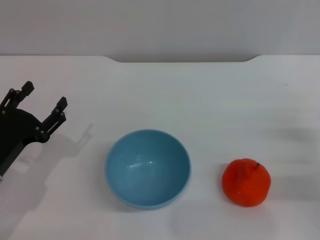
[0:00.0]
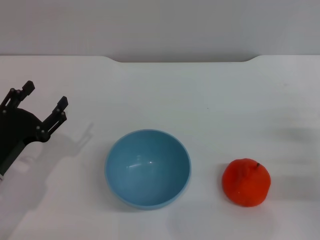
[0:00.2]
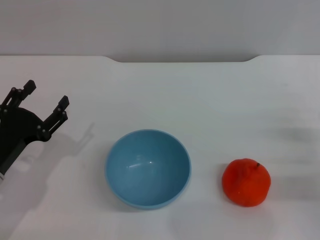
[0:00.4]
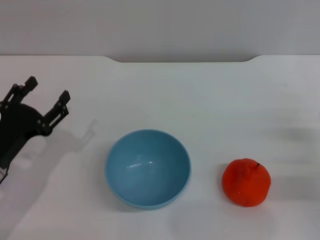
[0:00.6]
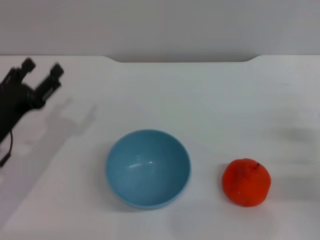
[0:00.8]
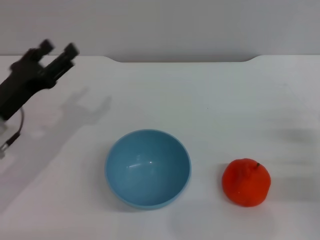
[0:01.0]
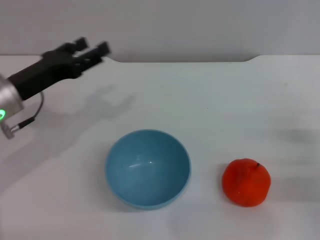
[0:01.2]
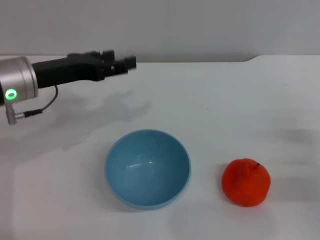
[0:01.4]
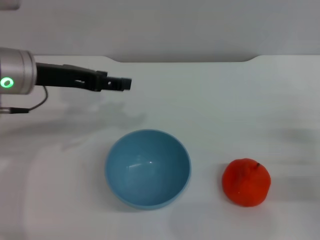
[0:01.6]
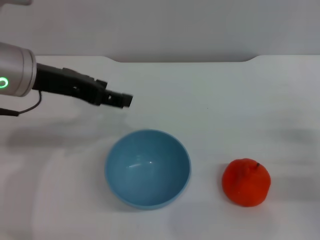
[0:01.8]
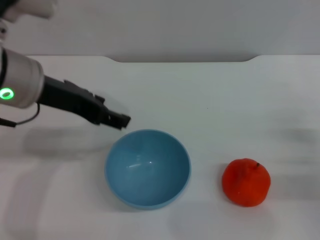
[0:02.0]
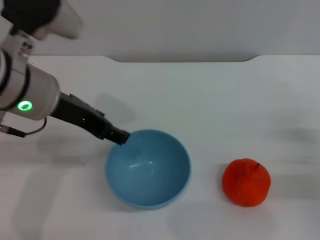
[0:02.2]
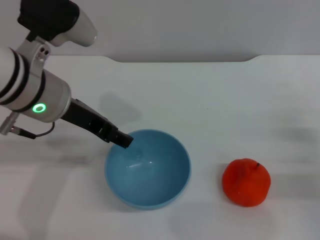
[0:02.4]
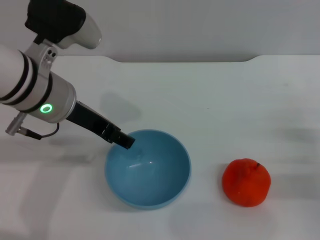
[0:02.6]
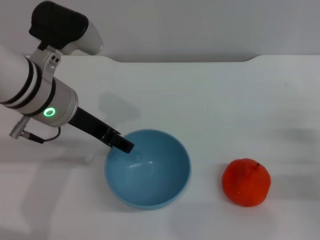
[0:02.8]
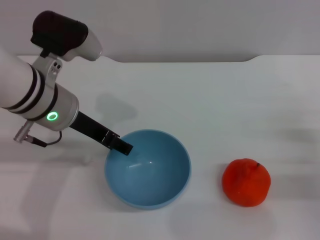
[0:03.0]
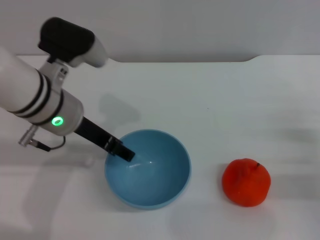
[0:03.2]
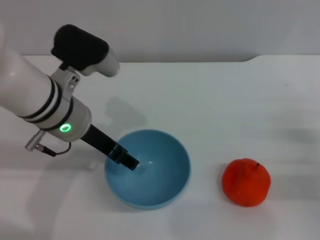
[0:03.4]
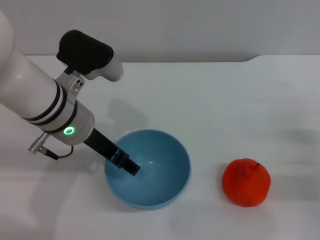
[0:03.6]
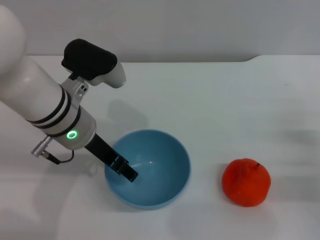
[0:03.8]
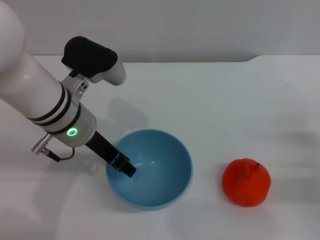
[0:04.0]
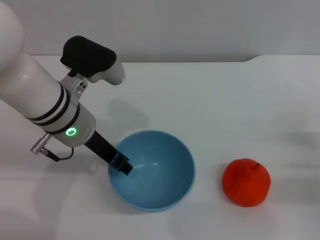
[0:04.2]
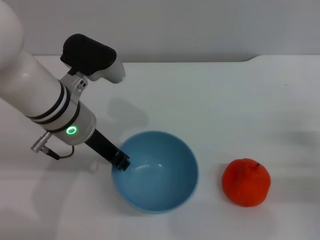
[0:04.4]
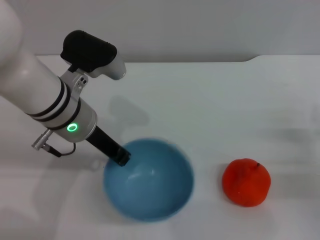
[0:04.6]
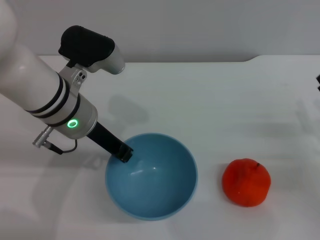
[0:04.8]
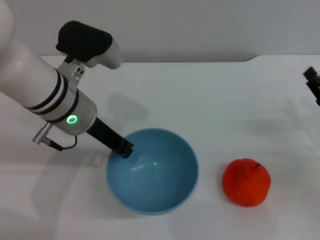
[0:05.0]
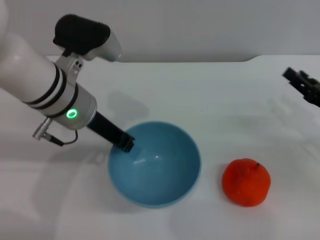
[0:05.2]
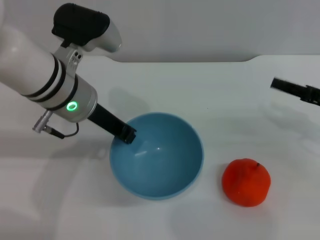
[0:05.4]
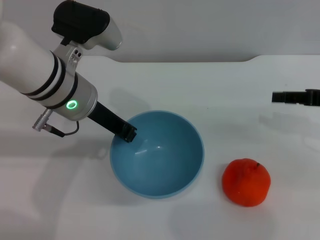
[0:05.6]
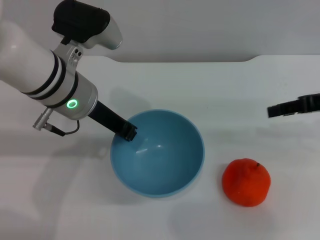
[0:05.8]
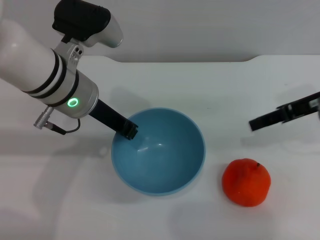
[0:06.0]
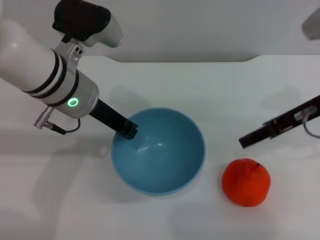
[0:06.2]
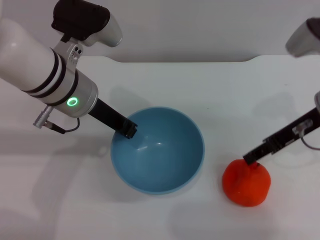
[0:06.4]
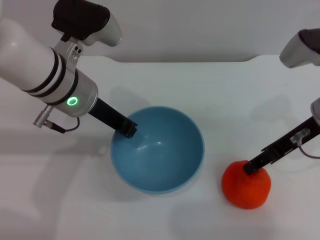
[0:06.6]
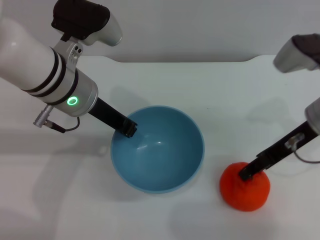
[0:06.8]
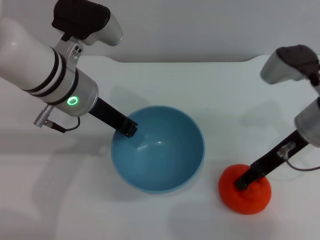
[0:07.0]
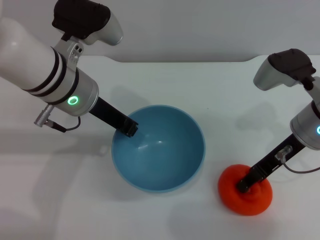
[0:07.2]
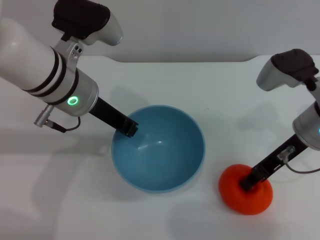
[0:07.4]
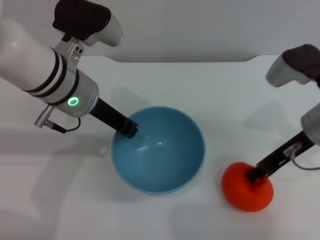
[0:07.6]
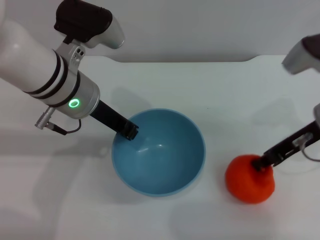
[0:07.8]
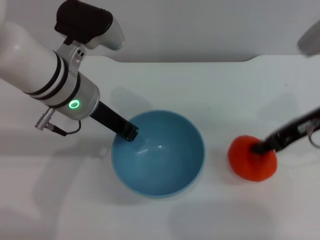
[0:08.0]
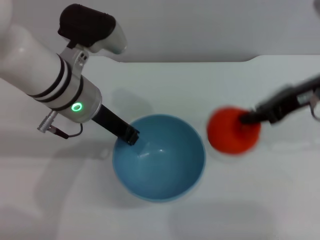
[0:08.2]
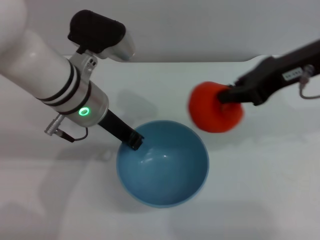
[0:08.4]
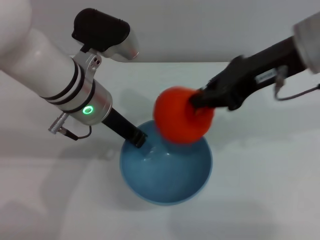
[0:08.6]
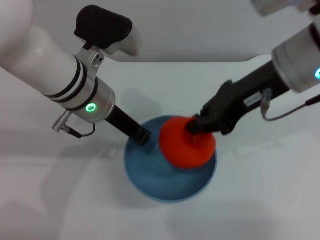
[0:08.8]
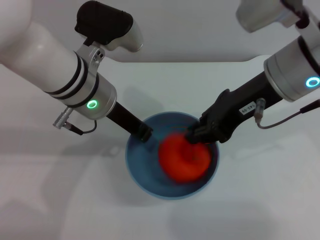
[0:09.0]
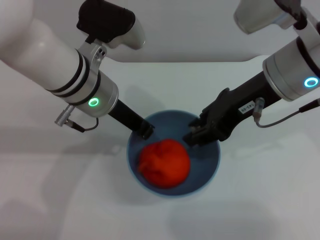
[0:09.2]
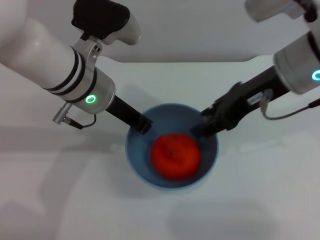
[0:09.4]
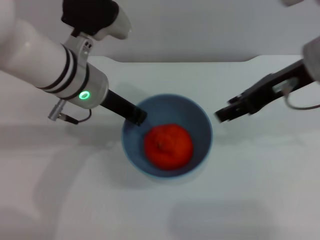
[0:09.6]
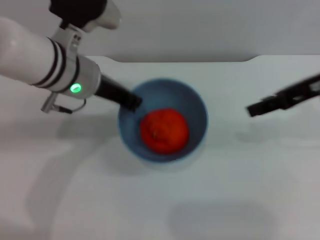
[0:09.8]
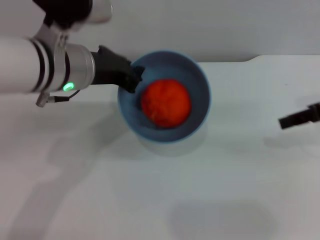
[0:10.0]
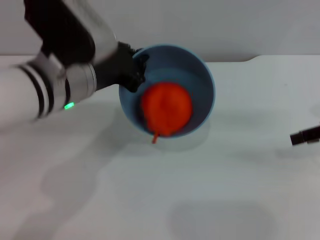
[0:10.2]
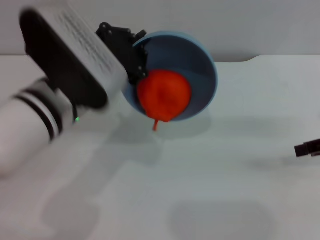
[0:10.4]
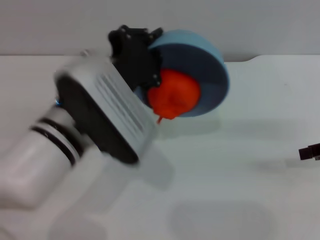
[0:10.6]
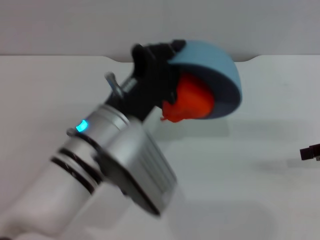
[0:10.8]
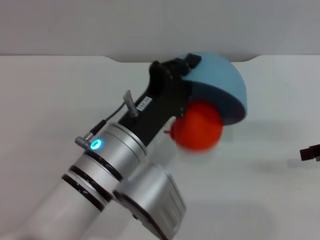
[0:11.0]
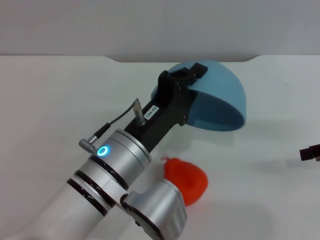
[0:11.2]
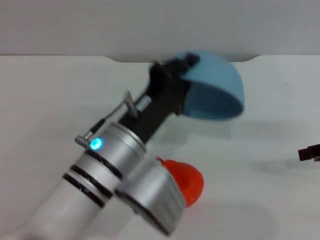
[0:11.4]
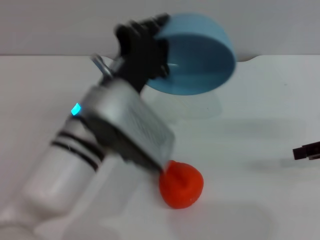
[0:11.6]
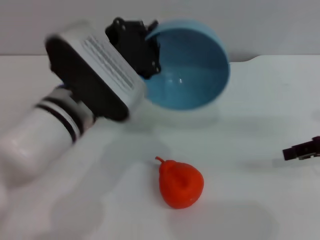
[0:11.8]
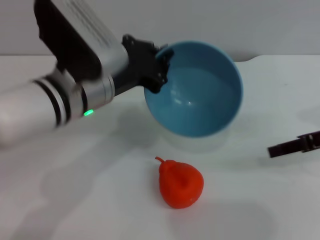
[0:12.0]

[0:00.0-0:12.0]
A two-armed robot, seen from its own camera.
Task of the whole recording: put the orange into the blue bowl and pour it out repeatedly.
Step, 0.0 to 5.6 s: Pick up the bowl with the left gripper.
Step, 6.0 to 8.0 s: Pick up the orange with the right gripper.
Step, 8.2 to 9.4 s: Place the orange into the bowl.
Step, 9.6 to 11.2 s: Pour the orange out of the bowl.
0.0 to 1.6 s: The left gripper heads upward and forward, covering roughly 20 cm.
1.6 to 3.0 s: The left gripper travels to the right by approximately 5 cm.
3.0 to 4.4 s: The left gripper closes its fingers.
4.4 to 6.0 s: The right gripper moves upward and forward, about 20 cm. Meanwhile the left gripper closes up.
6.0 to 7.6 s: The right gripper shifts by some 5 cm, and closes.
7.6 to 9.0 s: The right gripper moves upward and to the left, some 10 cm.
9.0 to 10.4 s: The left gripper travels backward by about 5 cm, while the right gripper shifts about 20 cm to the right, and opens.
10.4 to 12.0 s: The left gripper moves some 10 cm downward and comes back.

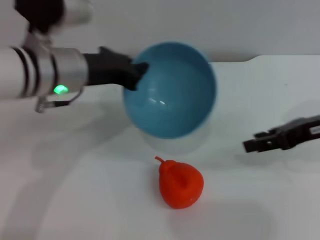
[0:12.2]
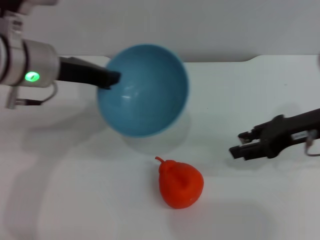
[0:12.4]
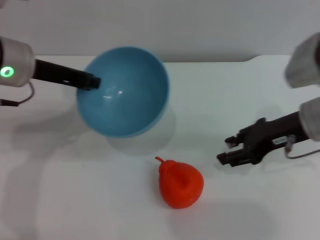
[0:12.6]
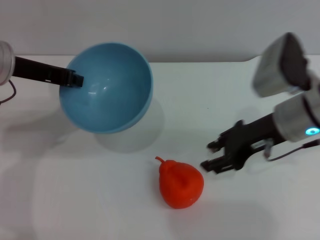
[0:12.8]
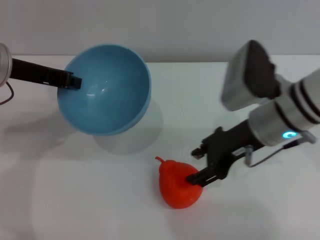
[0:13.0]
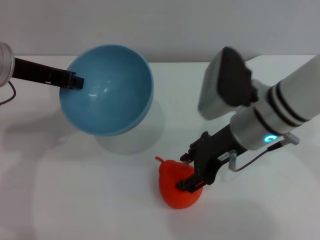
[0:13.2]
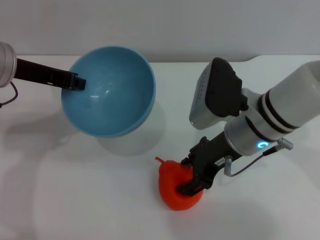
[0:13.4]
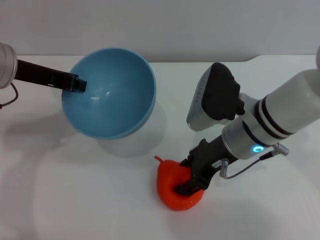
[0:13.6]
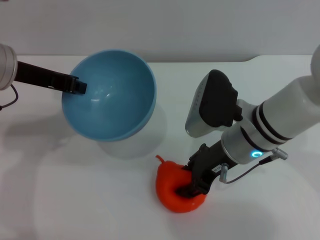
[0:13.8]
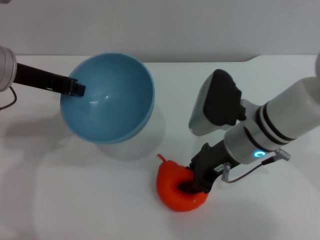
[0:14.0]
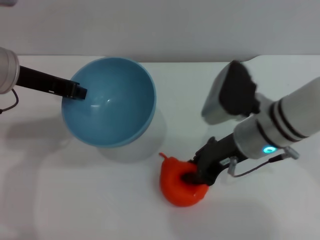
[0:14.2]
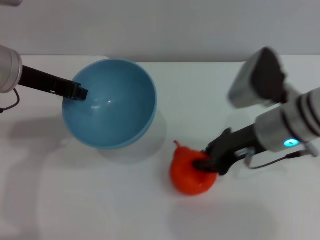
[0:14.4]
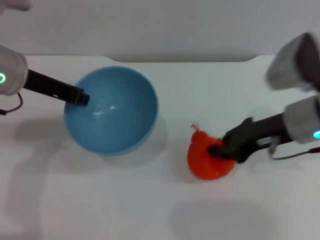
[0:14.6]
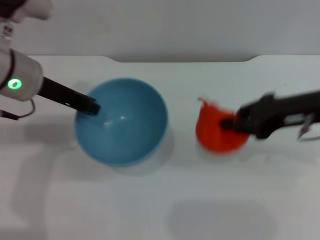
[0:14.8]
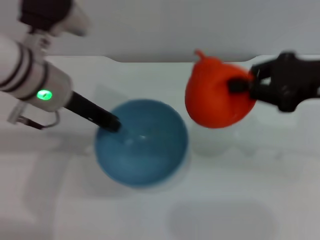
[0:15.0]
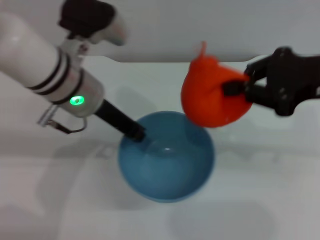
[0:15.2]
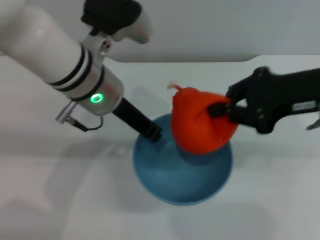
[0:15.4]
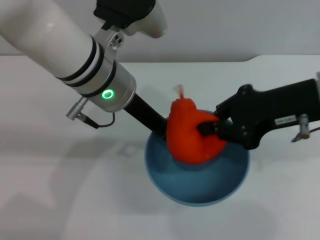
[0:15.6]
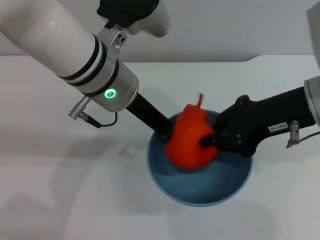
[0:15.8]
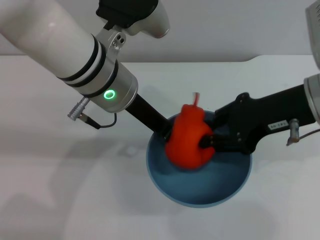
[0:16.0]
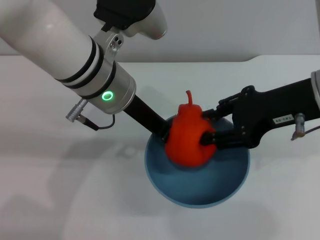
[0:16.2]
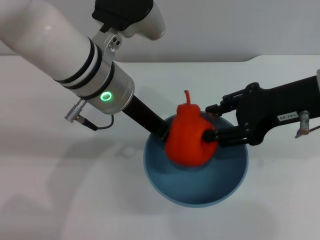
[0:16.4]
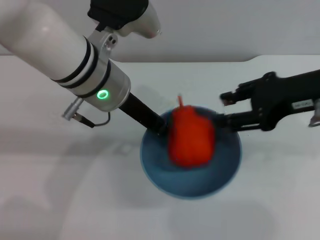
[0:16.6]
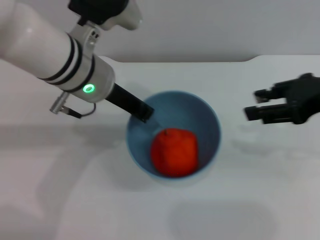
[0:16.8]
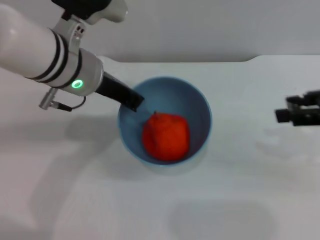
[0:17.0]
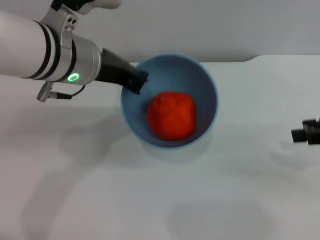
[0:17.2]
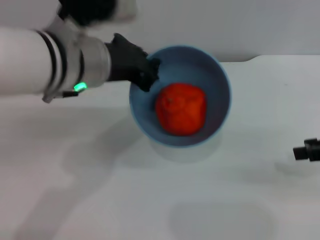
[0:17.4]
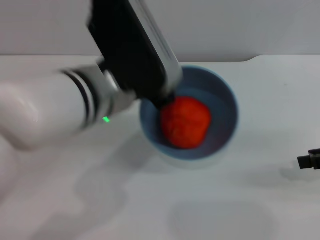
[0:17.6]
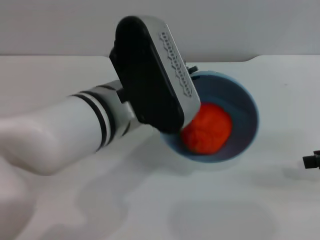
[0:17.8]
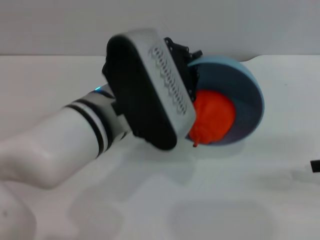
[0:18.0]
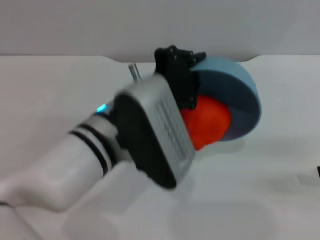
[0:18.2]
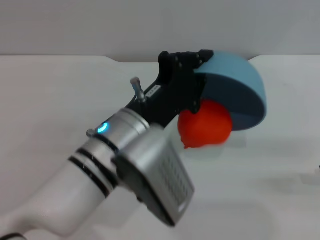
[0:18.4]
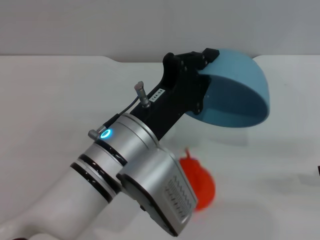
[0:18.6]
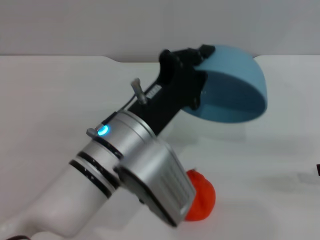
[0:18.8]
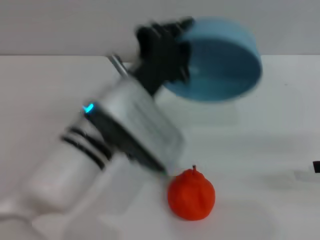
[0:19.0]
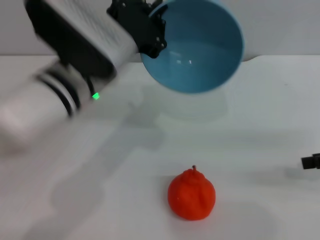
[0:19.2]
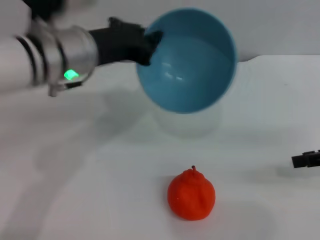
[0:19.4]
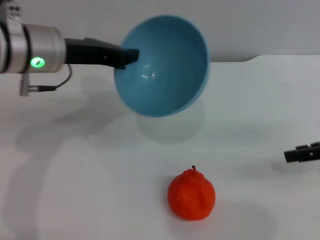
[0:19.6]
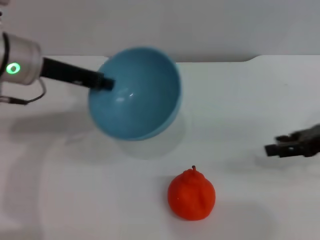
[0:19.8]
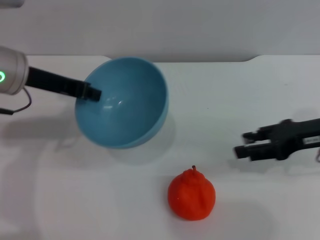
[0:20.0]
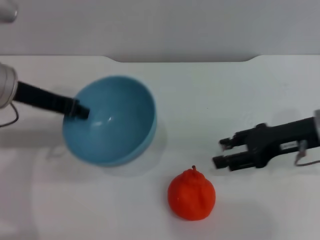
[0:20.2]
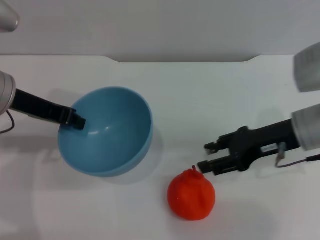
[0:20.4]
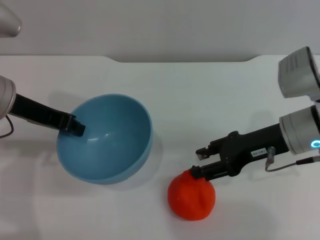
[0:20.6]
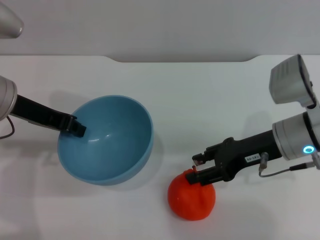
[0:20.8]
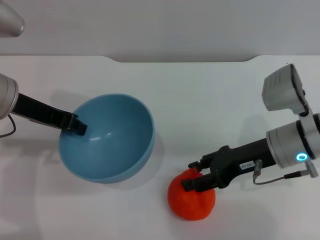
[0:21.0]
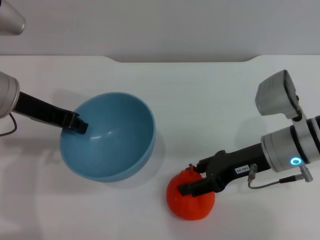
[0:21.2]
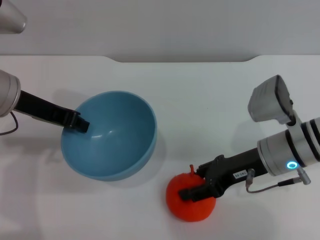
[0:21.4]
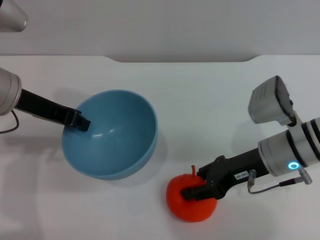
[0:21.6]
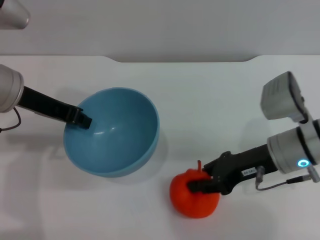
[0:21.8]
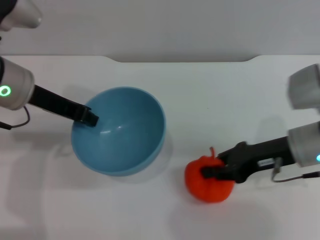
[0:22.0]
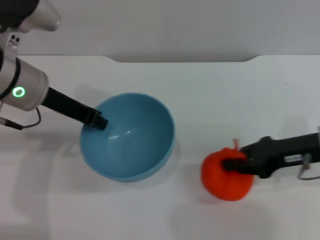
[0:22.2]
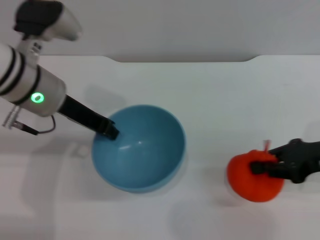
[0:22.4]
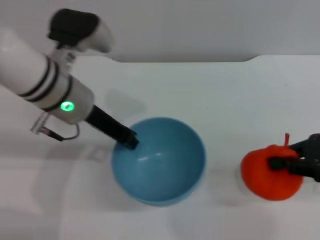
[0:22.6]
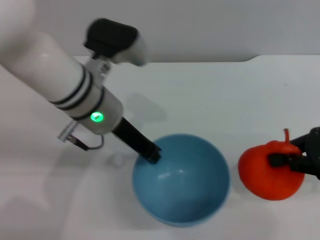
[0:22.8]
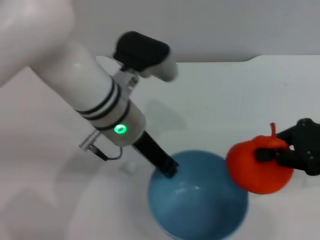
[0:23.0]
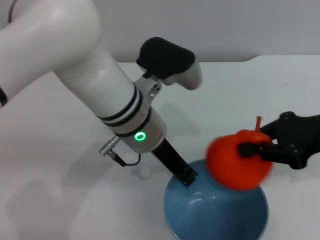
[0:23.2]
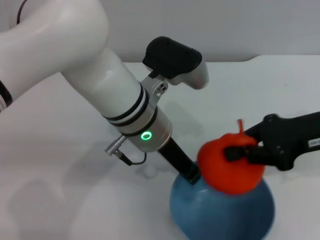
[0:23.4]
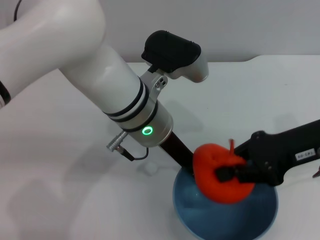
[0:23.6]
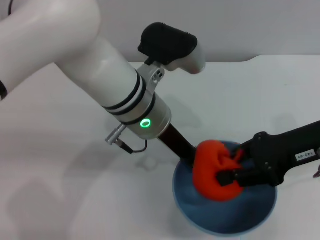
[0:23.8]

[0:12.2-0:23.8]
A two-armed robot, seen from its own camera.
Task of the whole recording: put the orange into the blue bowl and pour it out repeatedly.
Step, 12.2 to 14.6 s: Pick up the orange with the right gripper.
Step, 14.8 to 16.6 s: Place the orange into the bowl.
Step, 17.0 to 18.8 s: Pour the orange out of the bowl.
Step, 19.2 to 22.2 s: Pick up the orange with the right gripper.
12.2 to 13.6 s: The right gripper travels to the left by roughly 15 cm; the left gripper is displaced to the left by some 10 cm.
13.6 to 15.0 s: The left gripper shifts about 5 cm to the right. Meanwhile the right gripper shifts about 15 cm to the right and upward, and closes.
15.0 to 16.6 s: The left gripper travels to the right by roughly 5 cm. The right gripper opens up.
16.6 to 18.0 s: The right gripper moves to the right and downward, approximately 15 cm; the left gripper heads backward, covering about 10 cm.
18.0 to 19.4 s: The left gripper travels forward and to the left by about 10 cm.
19.4 to 21.0 s: The left gripper moves to the left, some 10 cm, while the right gripper travels to the left by about 15 cm.
21.0 to 22.4 s: The left gripper shifts some 5 cm to the right. The right gripper moves to the right, approximately 10 cm, and closes.
22.4 to 23.8 s: The right gripper heads to the left, covering roughly 5 cm. The left gripper goes approximately 15 cm to the right.
